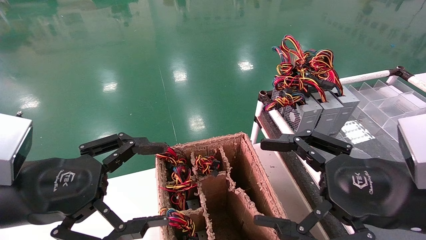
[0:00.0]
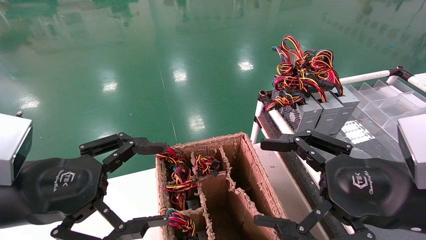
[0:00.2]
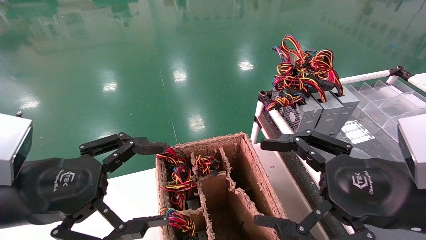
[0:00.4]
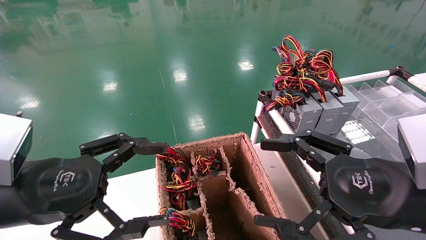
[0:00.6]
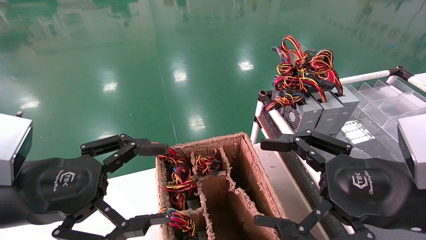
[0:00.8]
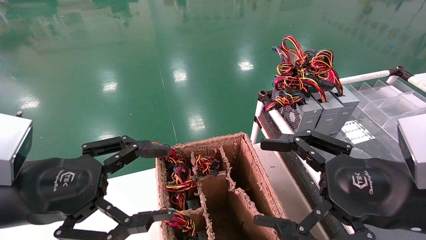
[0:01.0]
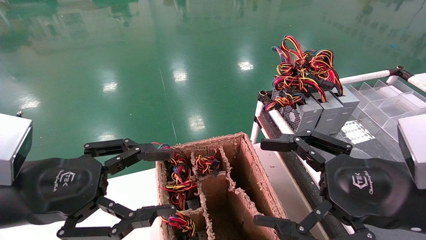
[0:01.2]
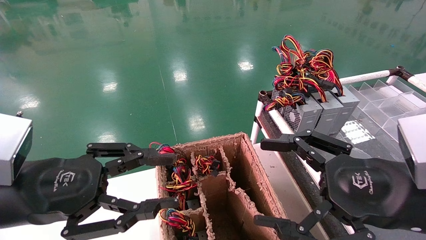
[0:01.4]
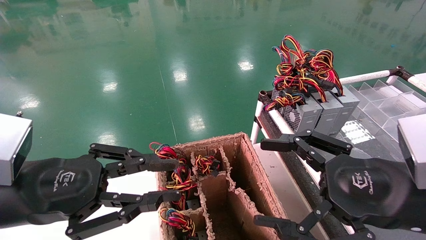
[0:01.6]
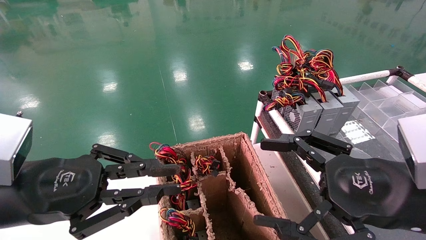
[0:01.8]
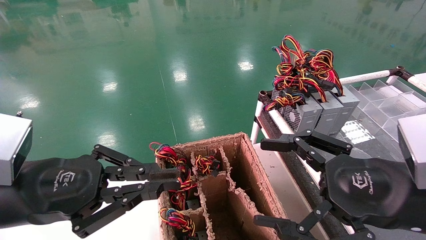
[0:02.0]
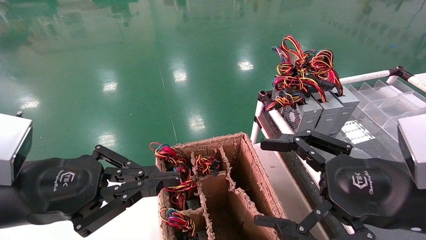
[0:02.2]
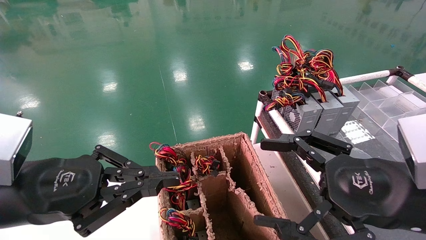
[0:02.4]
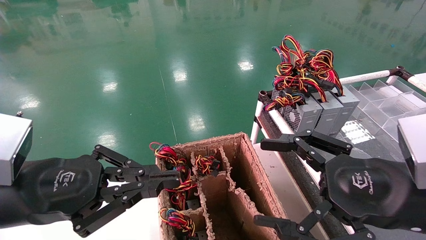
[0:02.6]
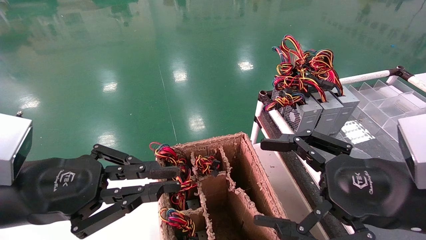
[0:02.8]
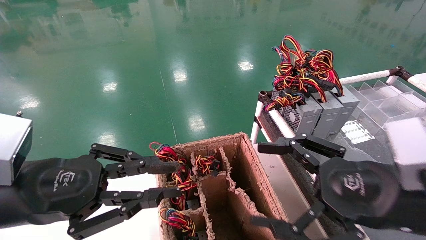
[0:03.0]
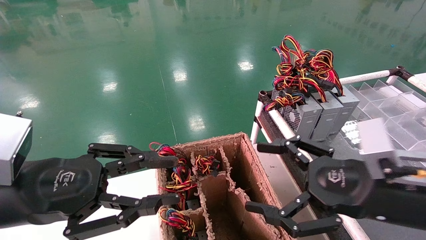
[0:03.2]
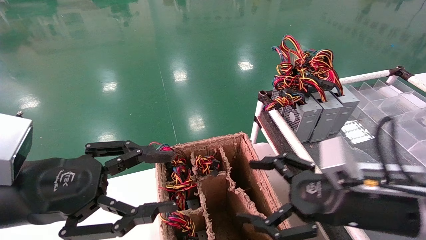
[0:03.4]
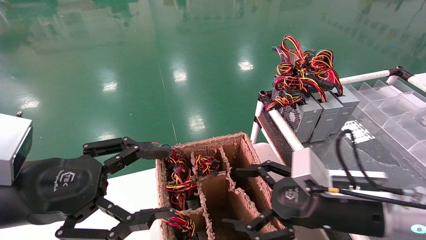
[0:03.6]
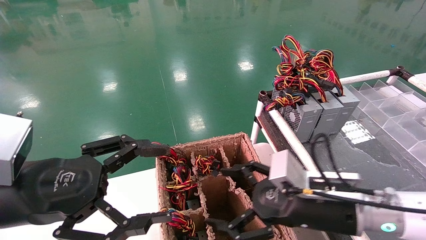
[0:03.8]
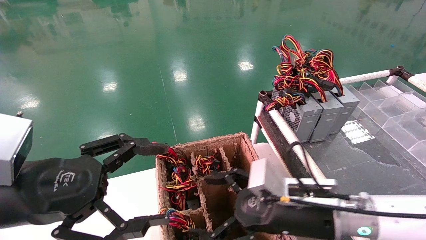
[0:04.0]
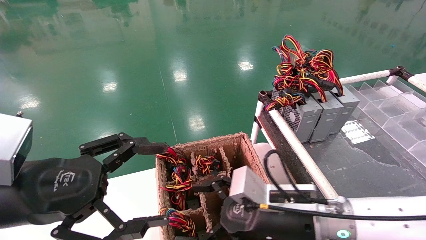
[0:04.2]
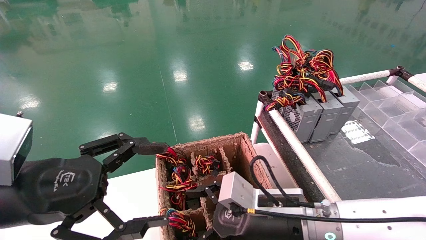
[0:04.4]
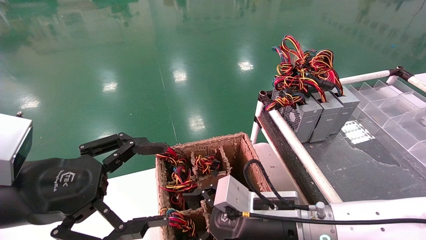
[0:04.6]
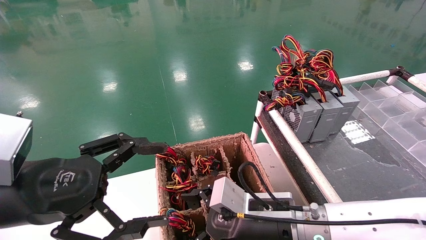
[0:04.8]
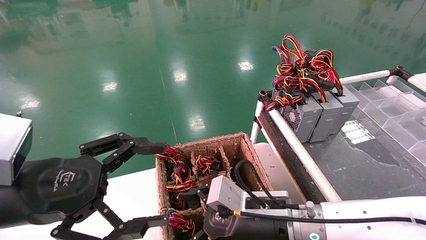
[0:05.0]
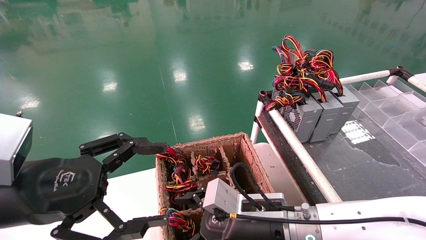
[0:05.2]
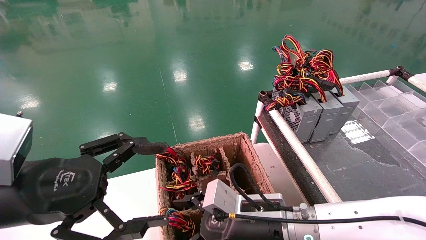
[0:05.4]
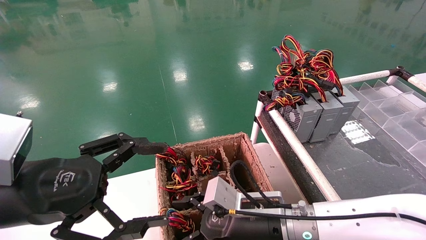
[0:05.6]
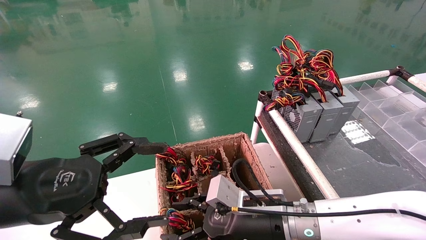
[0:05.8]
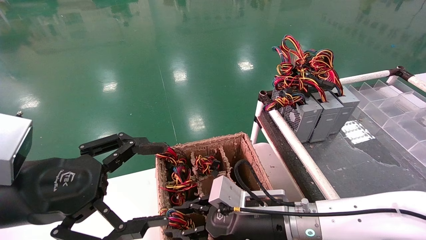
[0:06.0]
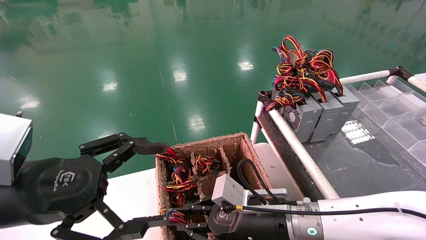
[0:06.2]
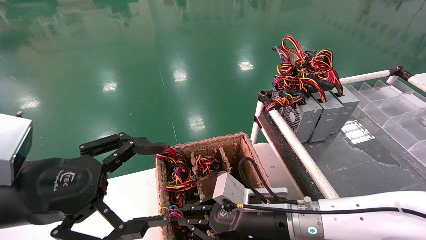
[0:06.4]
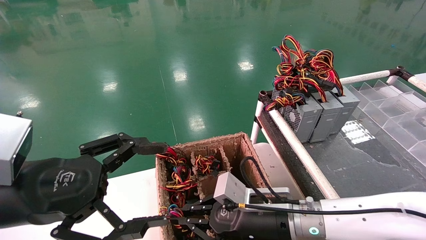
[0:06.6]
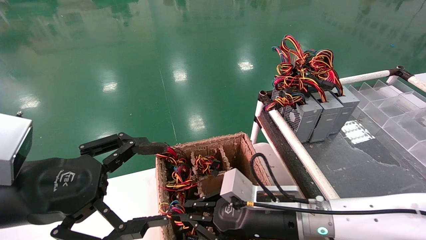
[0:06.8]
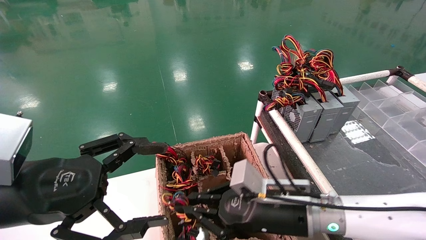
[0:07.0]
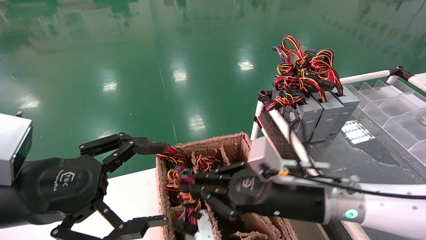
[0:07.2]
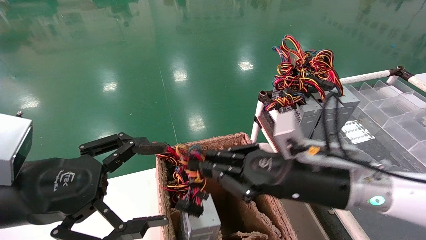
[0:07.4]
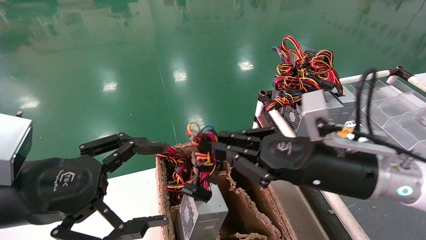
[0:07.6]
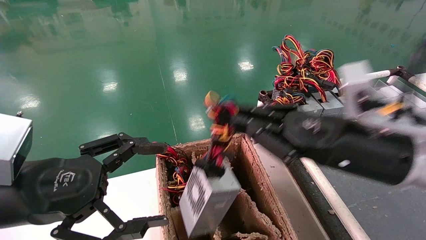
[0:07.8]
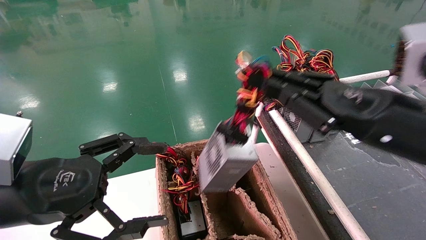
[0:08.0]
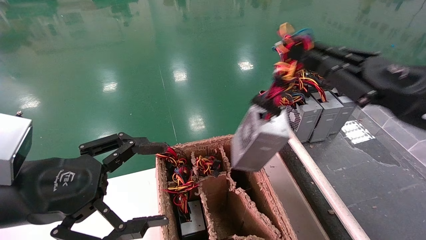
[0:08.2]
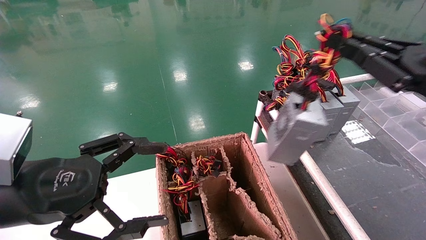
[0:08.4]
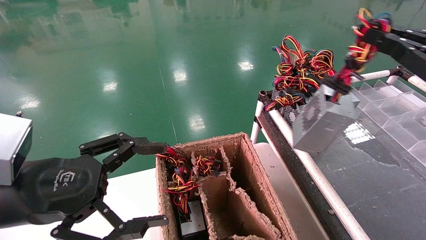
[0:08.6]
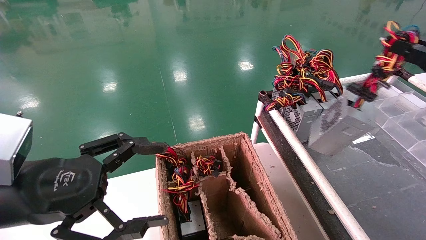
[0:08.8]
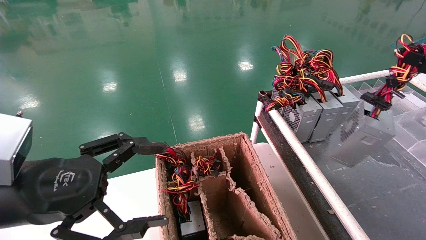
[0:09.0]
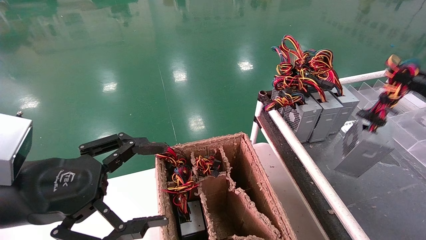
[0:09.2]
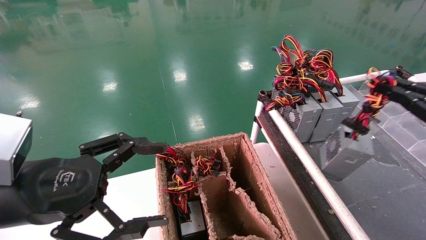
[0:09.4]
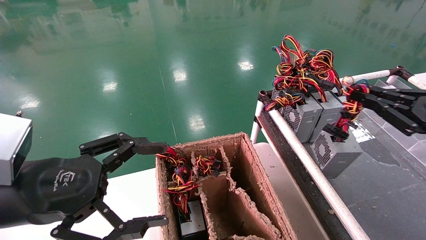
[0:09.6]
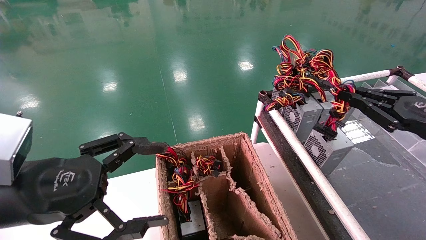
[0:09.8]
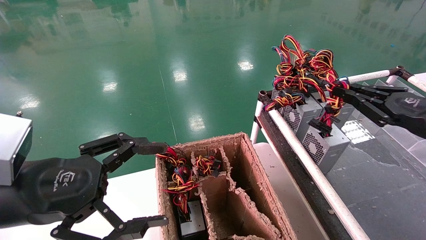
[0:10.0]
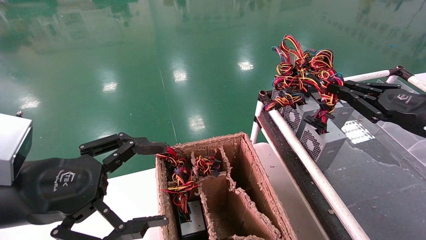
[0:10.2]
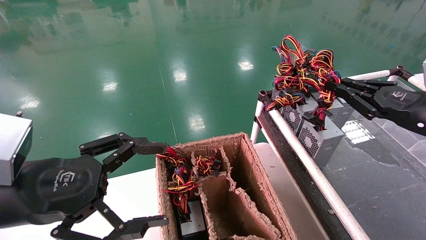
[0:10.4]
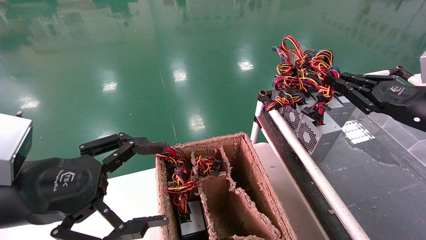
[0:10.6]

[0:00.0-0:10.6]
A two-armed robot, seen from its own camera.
Step, 0:02.4 to 0:06.6: Grab and lift the power supply from the large box.
0:00.0 to 0:01.6: The left gripper closes its fingers.
0:01.6 to 0:03.0: There are only small adjustments of the grippers.
0:03.0 to 0:04.6: The right gripper goes about 20 cm to the left, downward and forward. The left gripper opens.
0:04.6 to 0:06.0: The right gripper closes its fingers.
0:06.0 to 0:07.6: The right gripper travels upward and to the right by some 15 cm, and closes.
0:07.6 to 0:09.0: The right gripper moves to the right, about 25 cm.
0:09.0 to 0:10.6: The right gripper shifts roughly 10 cm forward and to the left.

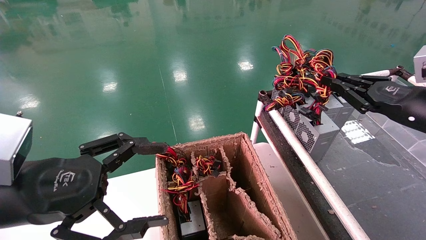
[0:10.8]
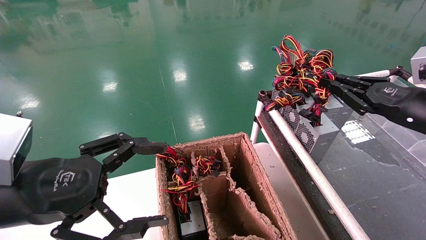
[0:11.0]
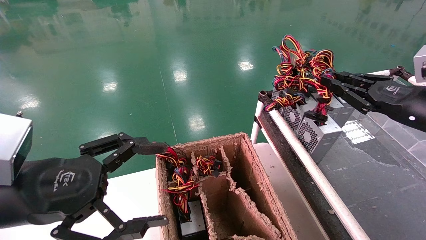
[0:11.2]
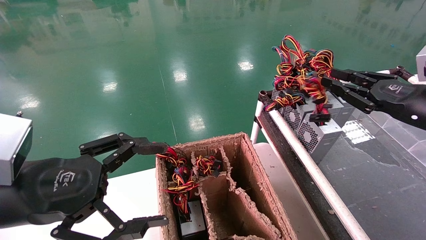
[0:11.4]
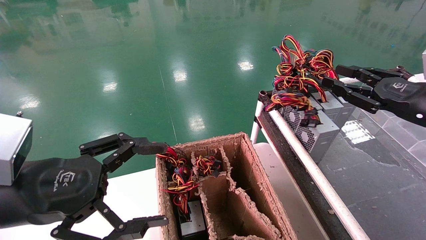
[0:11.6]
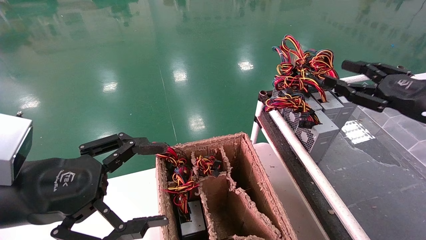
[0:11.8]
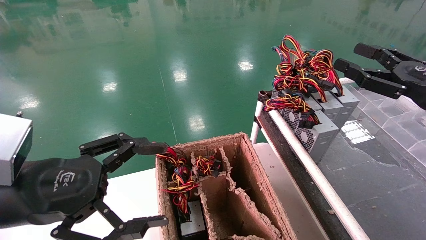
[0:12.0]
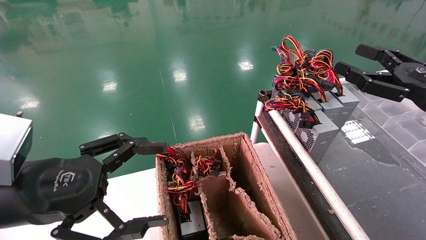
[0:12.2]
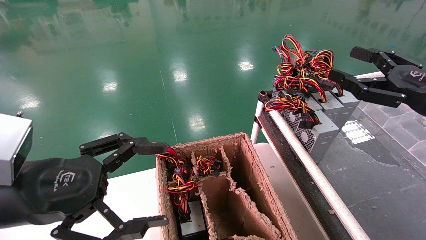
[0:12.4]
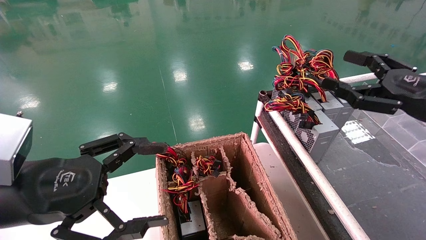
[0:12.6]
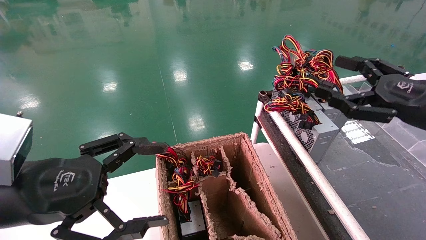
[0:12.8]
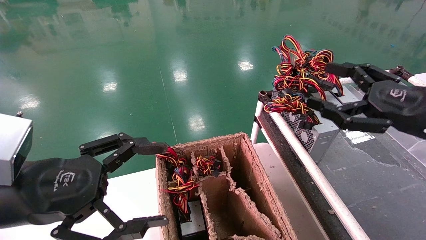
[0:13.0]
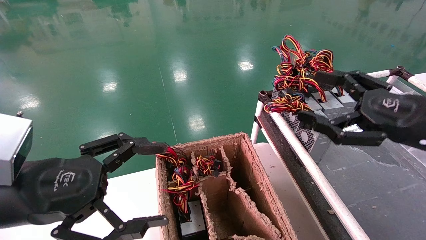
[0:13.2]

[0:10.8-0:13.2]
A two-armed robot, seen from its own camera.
0:10.8 to 0:12.0: The right gripper opens up.
0:12.0 to 0:13.2: The right gripper heads to the left, covering about 5 cm, and opens up.

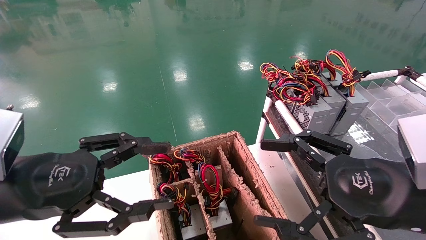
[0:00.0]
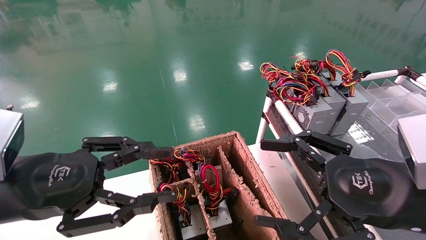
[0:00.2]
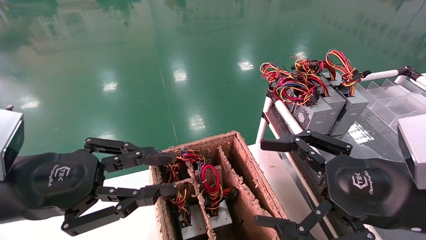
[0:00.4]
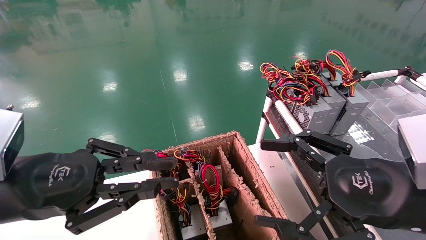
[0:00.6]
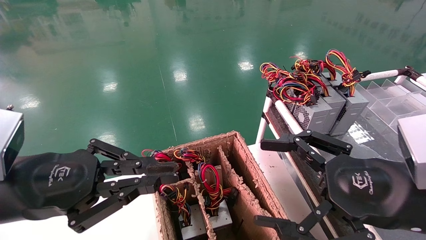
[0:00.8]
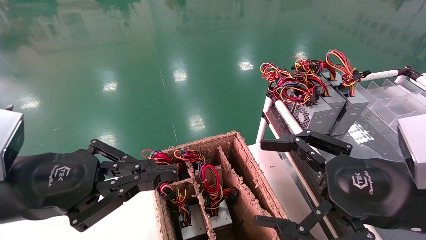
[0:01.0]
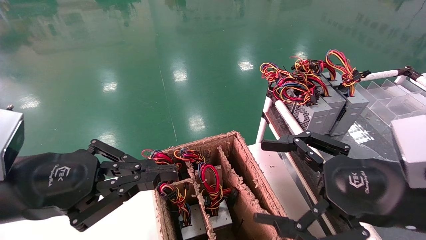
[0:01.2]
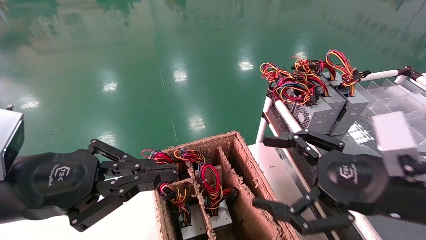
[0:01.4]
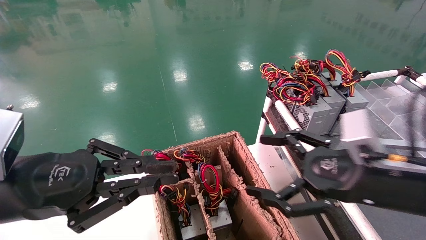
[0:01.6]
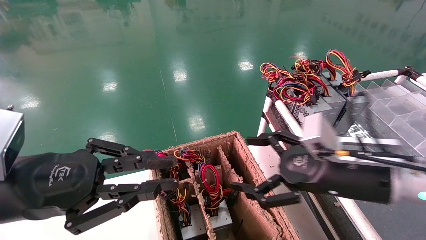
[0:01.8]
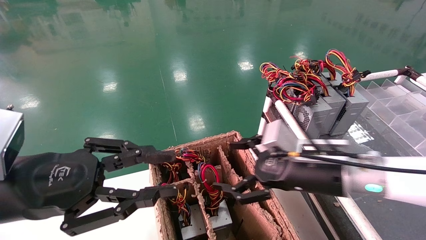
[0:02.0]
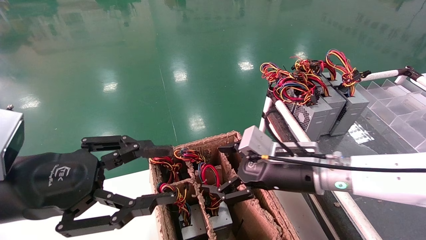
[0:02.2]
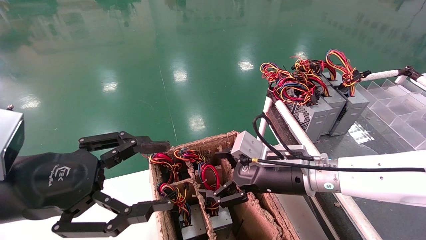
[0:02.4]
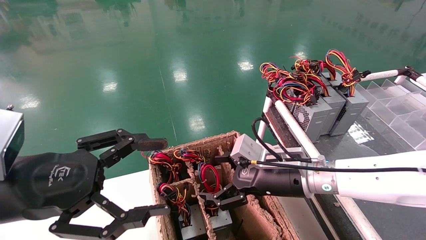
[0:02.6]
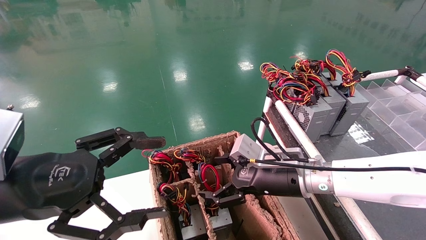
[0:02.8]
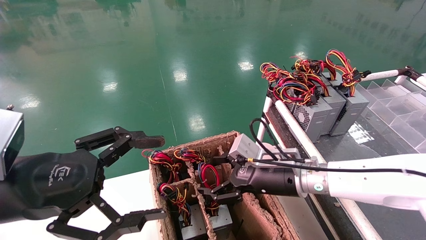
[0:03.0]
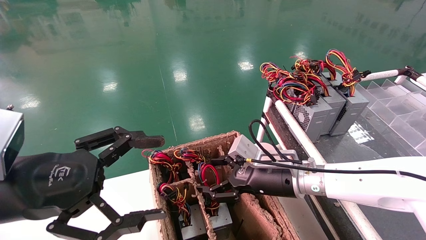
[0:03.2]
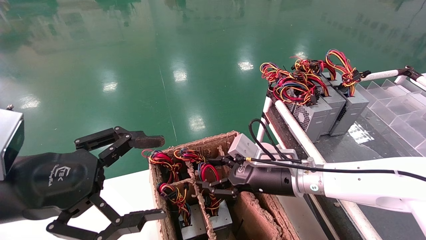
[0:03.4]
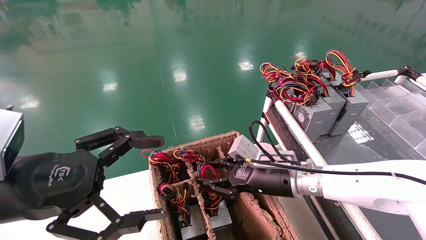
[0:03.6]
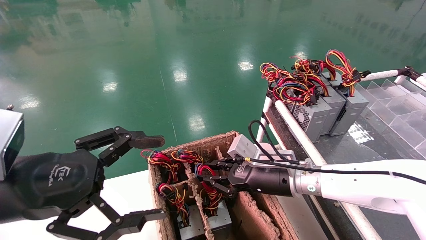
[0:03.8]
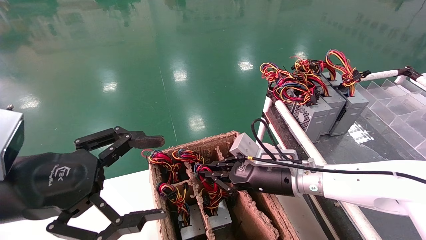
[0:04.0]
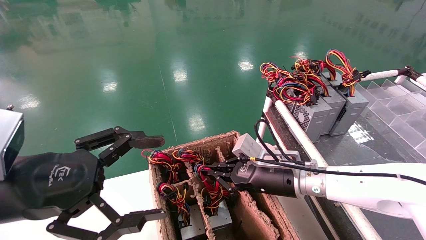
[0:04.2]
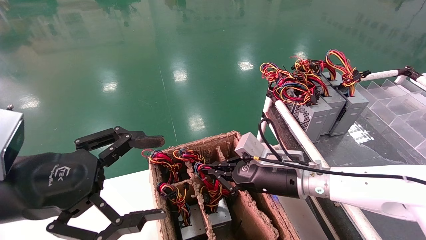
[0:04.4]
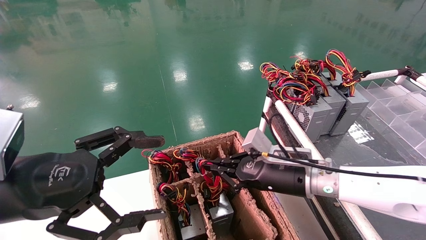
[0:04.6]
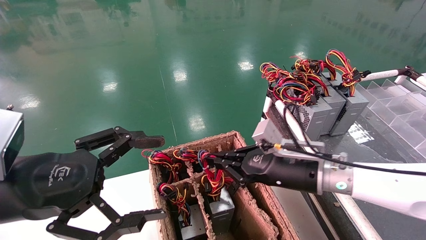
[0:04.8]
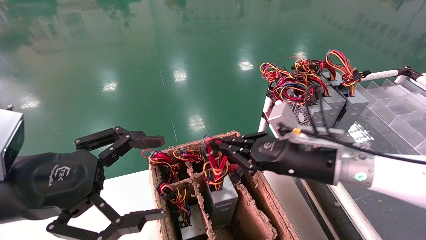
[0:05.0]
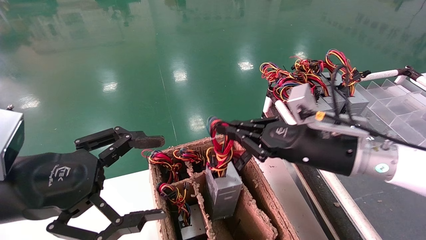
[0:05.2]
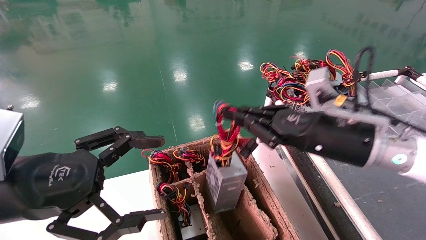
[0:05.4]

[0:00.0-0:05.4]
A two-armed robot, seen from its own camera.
Step, 0:01.2 to 0:04.2: Grab and lift the power supply from the large box.
0:00.0 to 0:01.4: The left gripper closes up.
0:01.4 to 0:02.8: The right gripper shifts approximately 20 cm forward, to the left and downward, while the left gripper opens its fingers.
0:02.8 to 0:04.0: The right gripper closes.
0:04.0 to 0:05.4: The right gripper travels upward, to the right and backward by roughly 15 cm.
